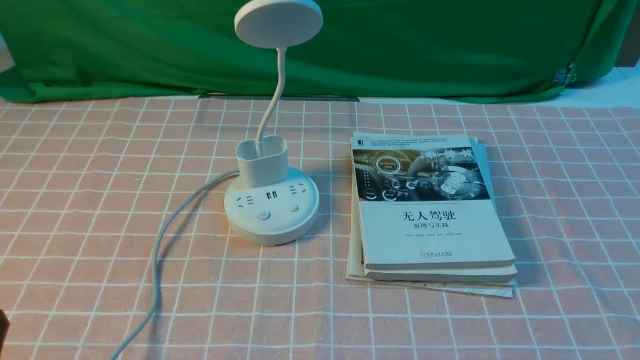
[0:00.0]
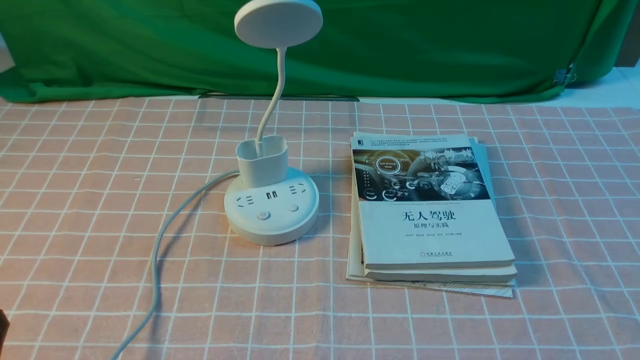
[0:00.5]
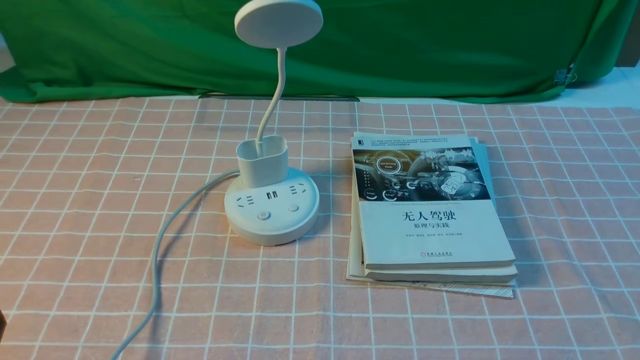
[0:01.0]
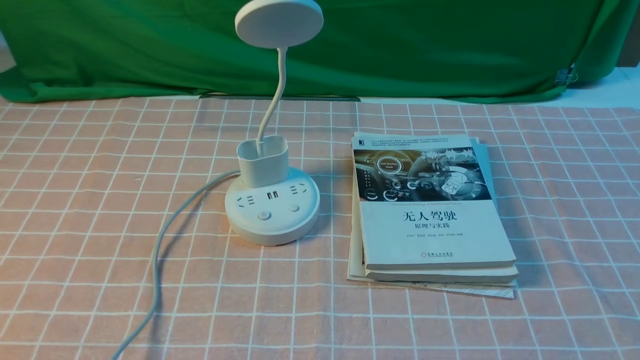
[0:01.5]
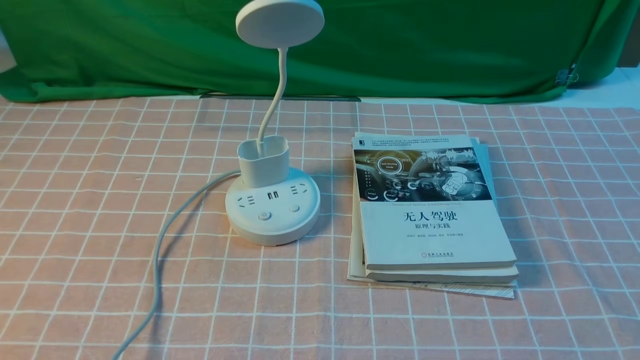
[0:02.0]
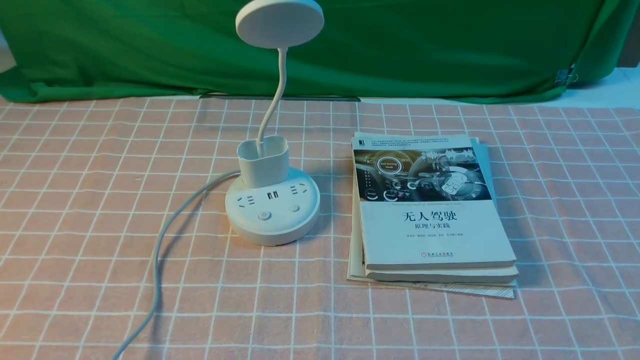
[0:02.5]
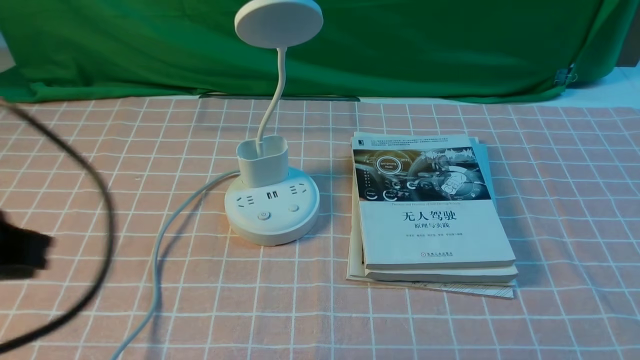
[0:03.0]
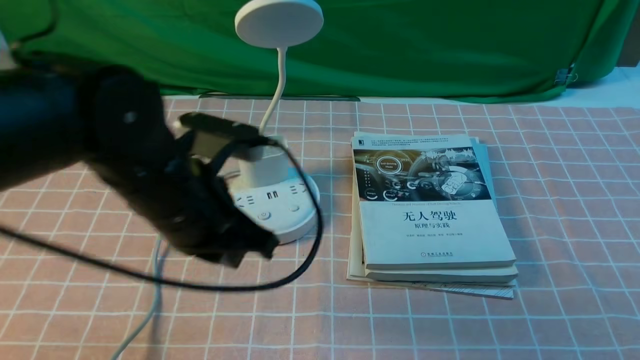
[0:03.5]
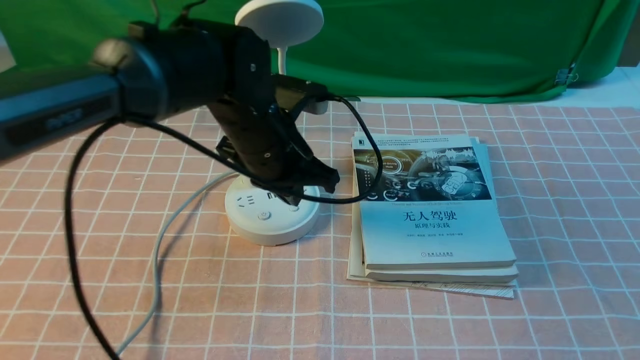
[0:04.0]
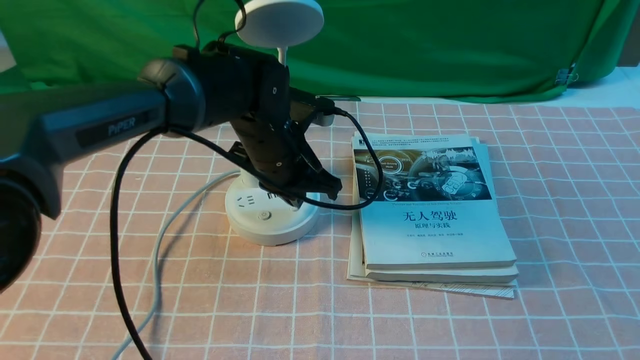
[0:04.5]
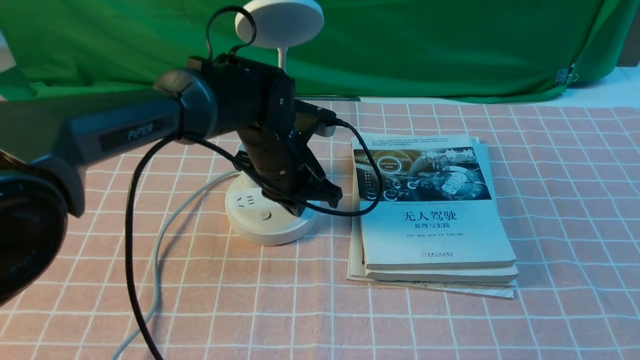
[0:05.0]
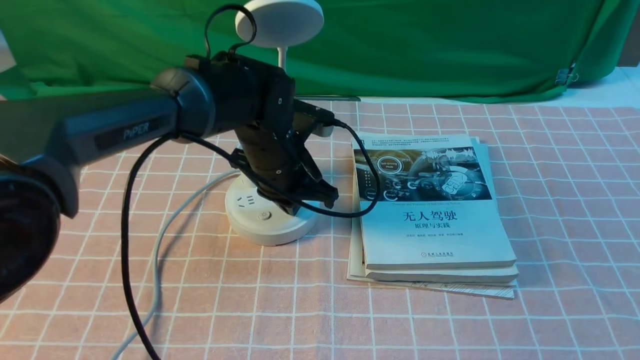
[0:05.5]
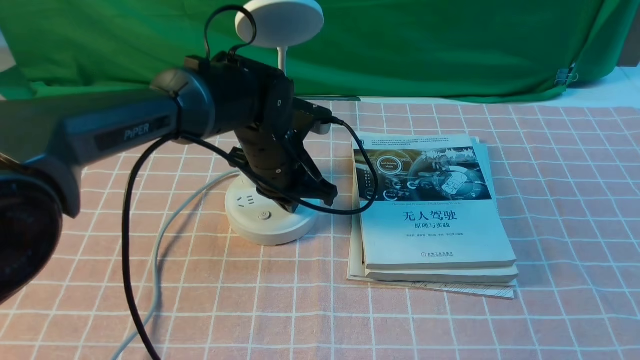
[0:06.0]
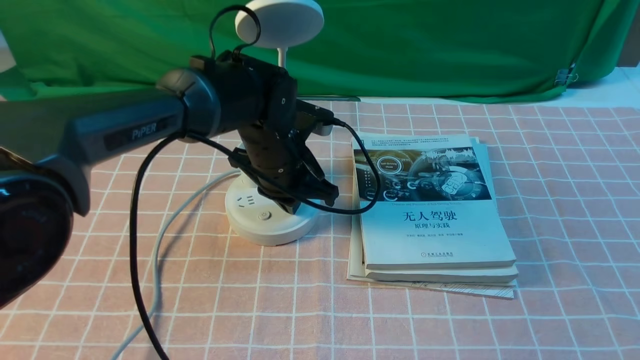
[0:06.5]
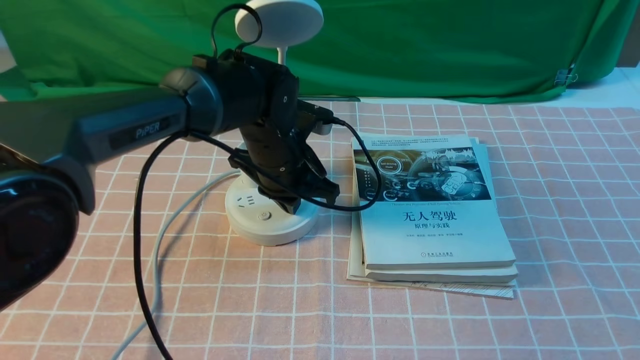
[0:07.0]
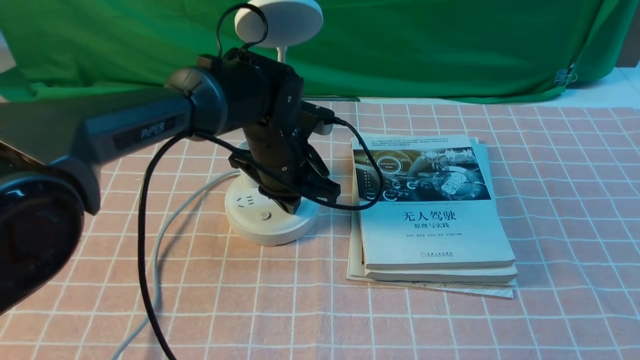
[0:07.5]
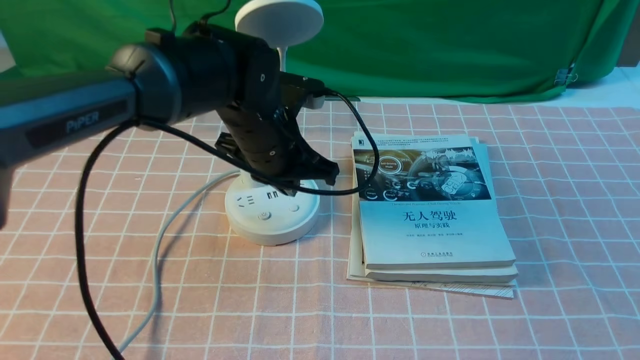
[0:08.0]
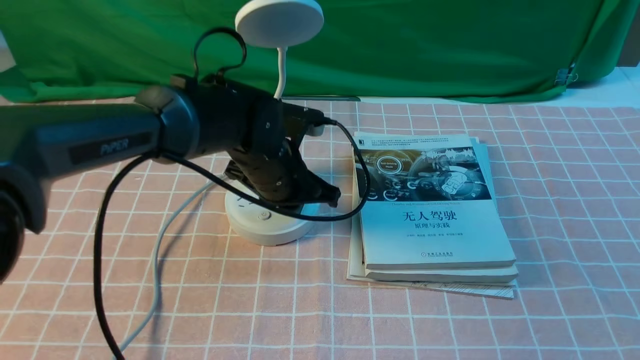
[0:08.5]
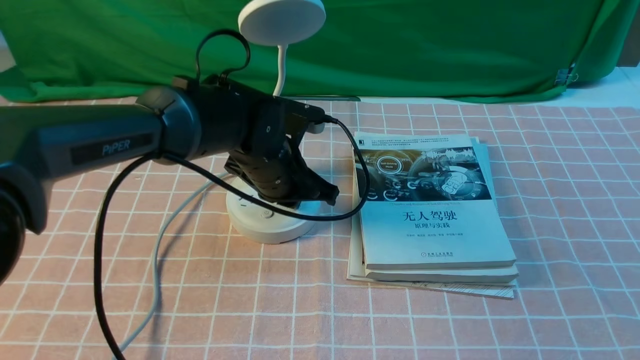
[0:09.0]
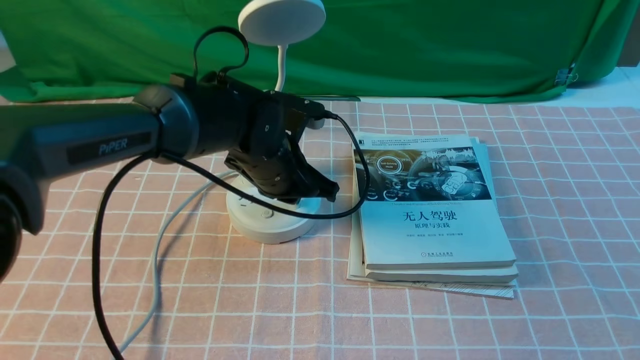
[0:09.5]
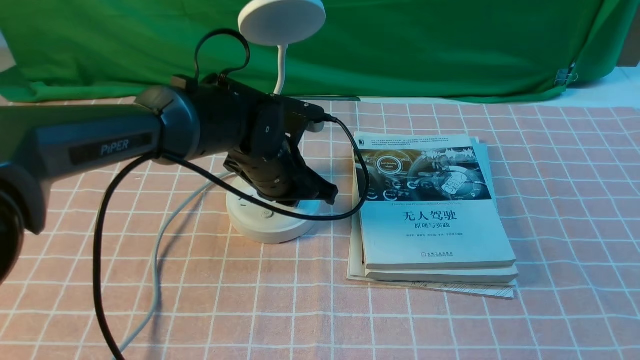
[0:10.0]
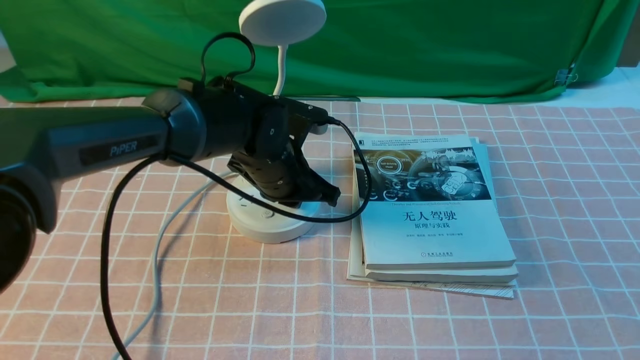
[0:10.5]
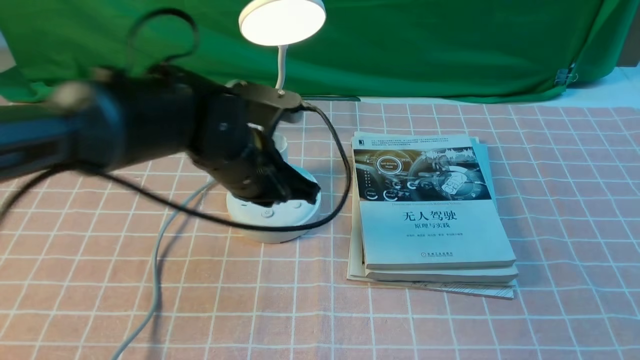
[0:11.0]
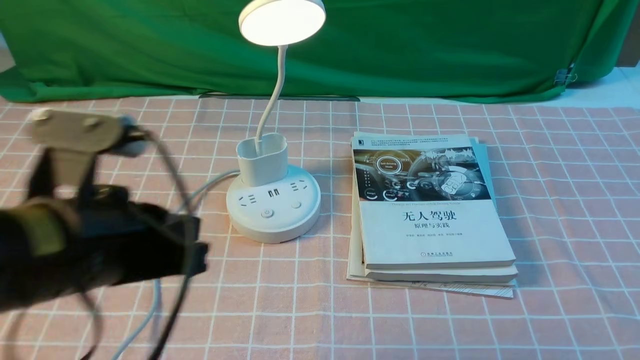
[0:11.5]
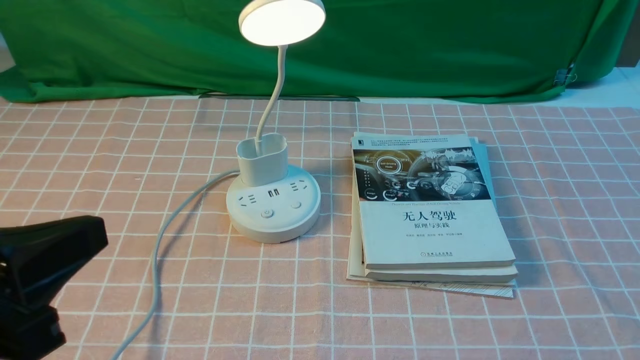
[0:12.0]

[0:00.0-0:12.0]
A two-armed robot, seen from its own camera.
Step, 0:00.0 to 0:10.5: use the left arm to press the button switch on the lamp holder.
0:02.0 to 0:04.0: The left gripper heads forward and to the right, covering some 35 cm.
0:04.0 to 0:06.0: The left gripper heads downward, covering about 5 cm.
0:06.0 to 0:10.0: The grippers make only small movements.
0:10.0 to 0:12.0: The left gripper travels backward, to the left and upward by about 35 cm.

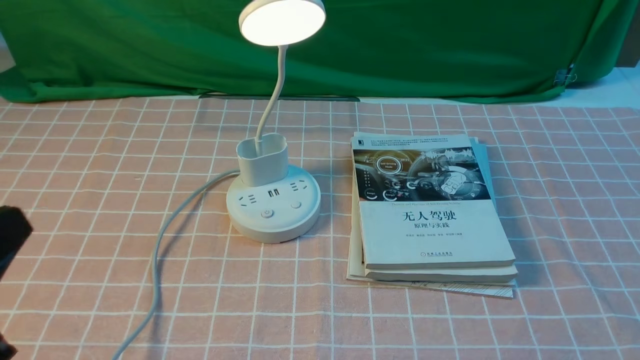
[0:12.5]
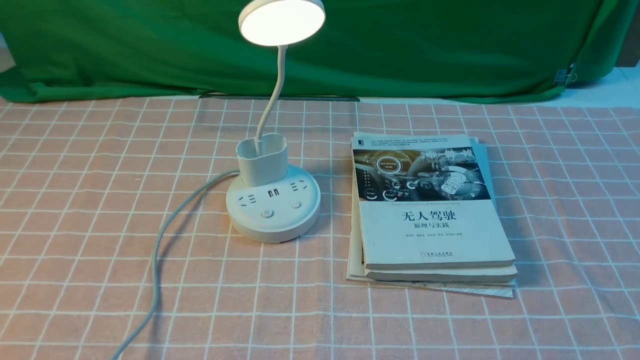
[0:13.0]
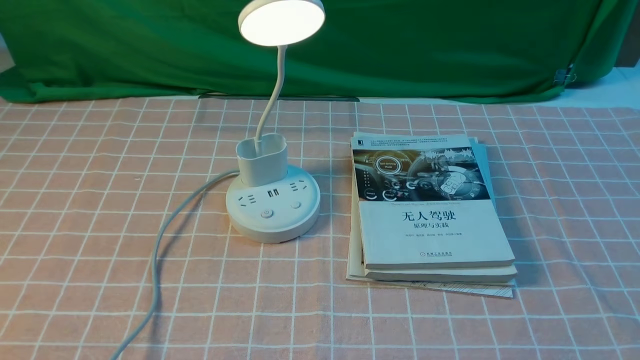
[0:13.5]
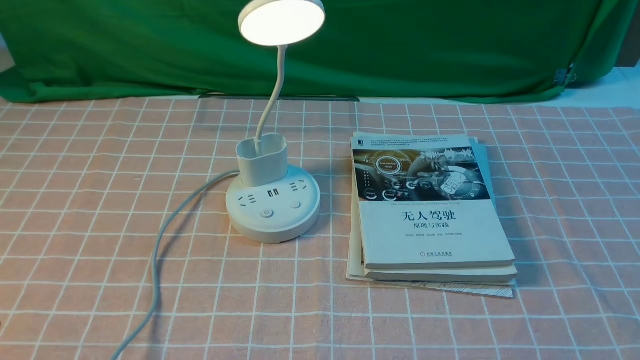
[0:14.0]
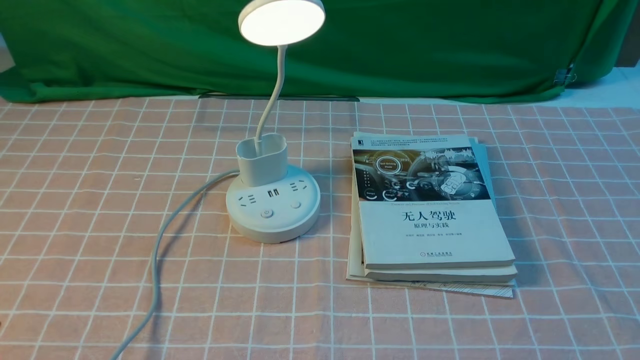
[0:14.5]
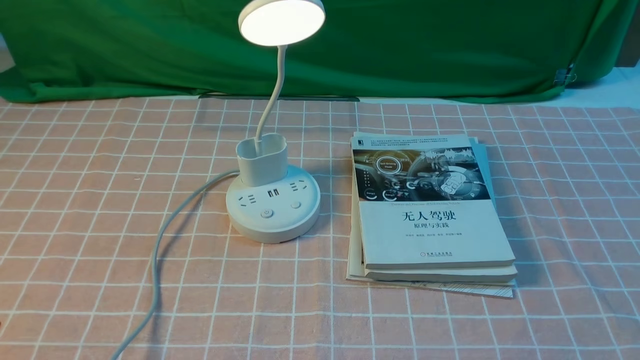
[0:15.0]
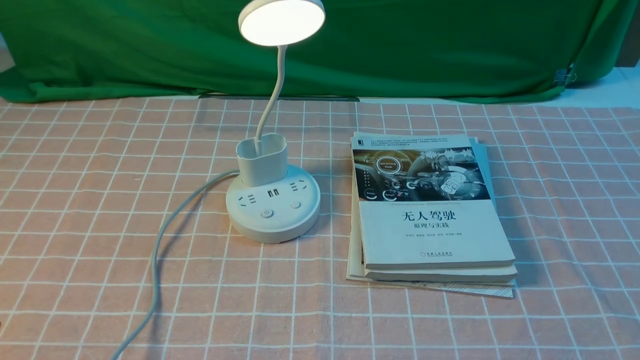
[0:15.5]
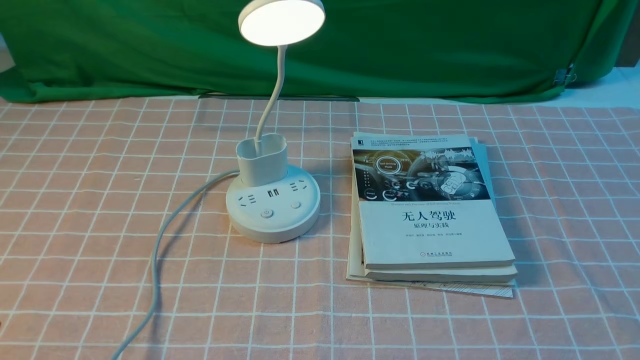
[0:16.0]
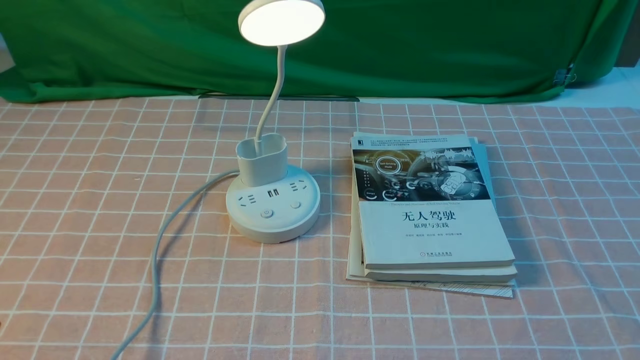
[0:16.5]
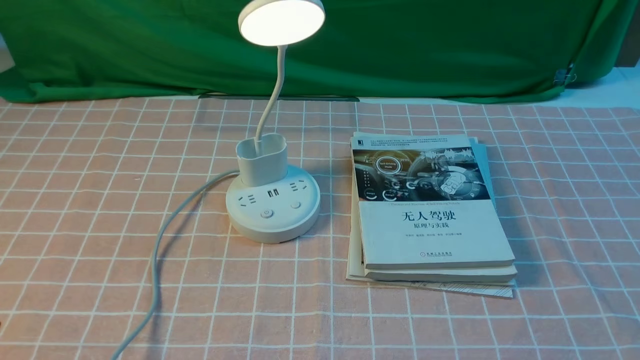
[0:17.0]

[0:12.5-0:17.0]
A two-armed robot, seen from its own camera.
0:12.5 to 0:14.5: The left gripper moves downward, about 10 cm.
0:14.5 to 0:17.0: Both grippers stay put.
